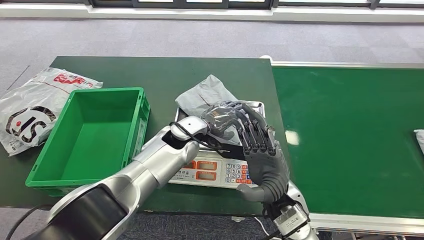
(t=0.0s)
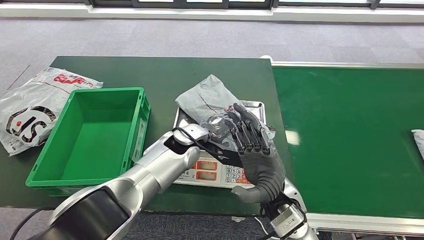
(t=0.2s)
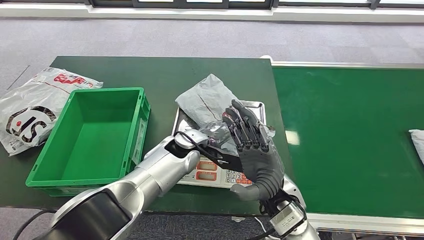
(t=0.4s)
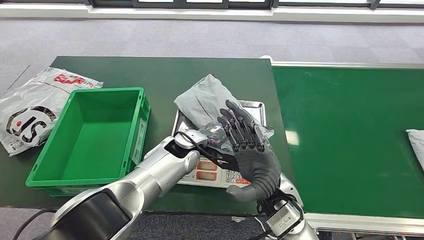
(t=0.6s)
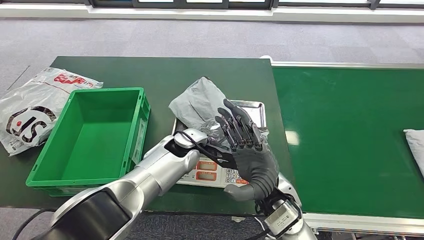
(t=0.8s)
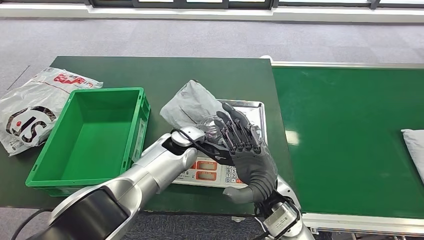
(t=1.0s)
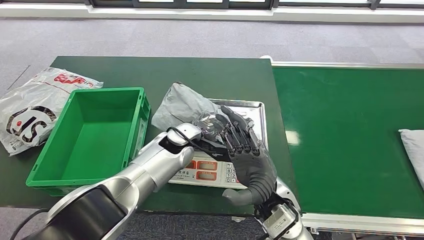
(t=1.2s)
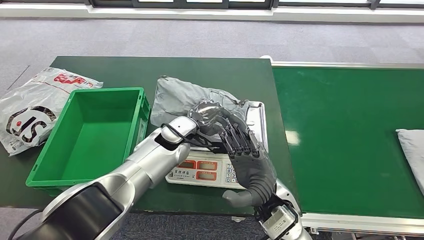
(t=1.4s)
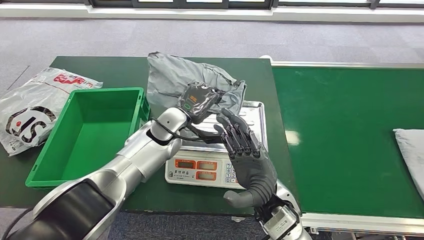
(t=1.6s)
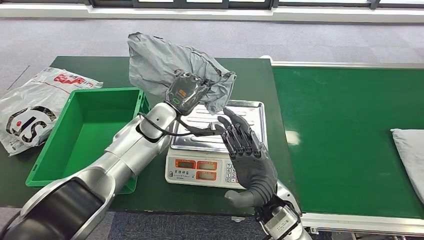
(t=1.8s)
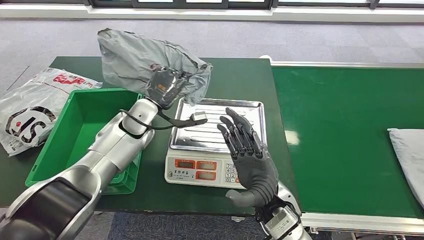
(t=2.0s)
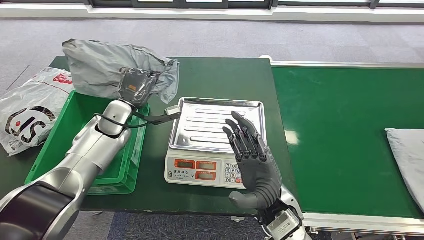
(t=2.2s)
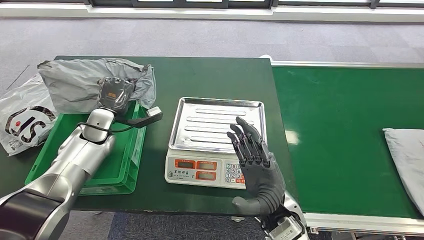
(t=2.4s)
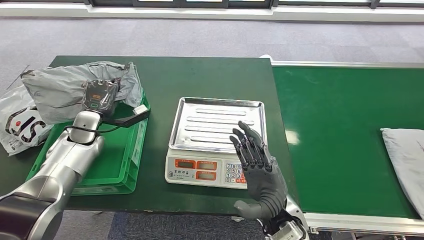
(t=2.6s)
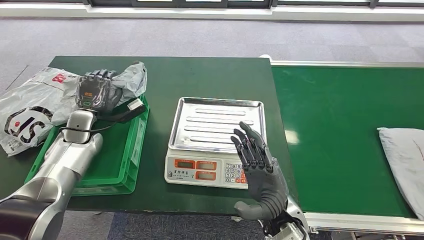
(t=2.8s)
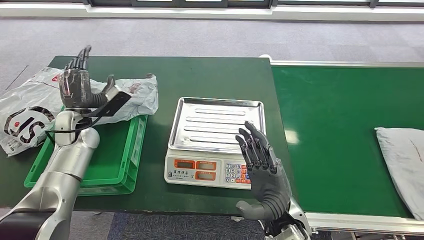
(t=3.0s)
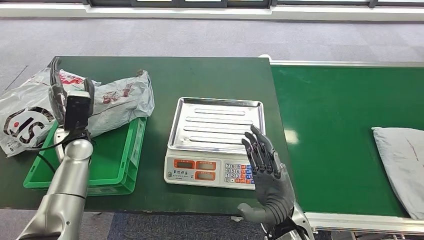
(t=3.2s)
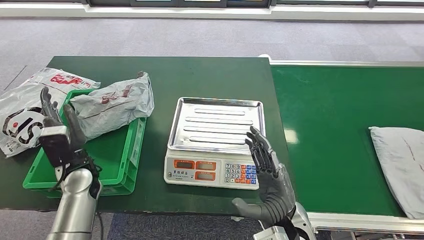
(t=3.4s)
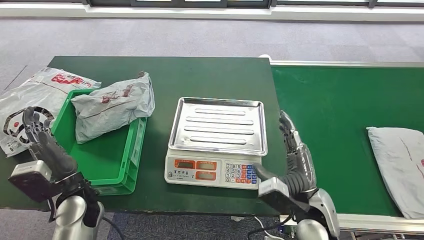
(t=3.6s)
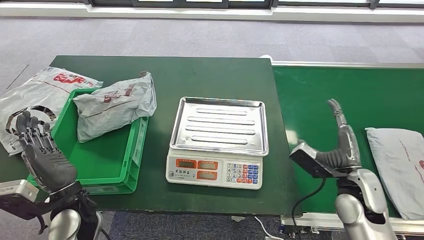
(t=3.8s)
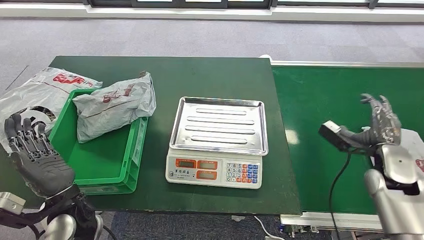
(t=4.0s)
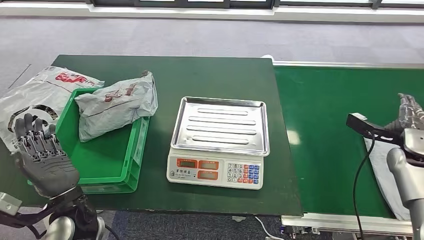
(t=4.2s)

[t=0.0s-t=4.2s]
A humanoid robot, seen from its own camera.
Step, t=0.0s to t=2.2s: Pick up the parcel from the inbound machine.
Step, t=2.4s to t=4.0s: Put the parcel inside the courier box.
t=0.0s to t=1.4s: The hands move only a little.
